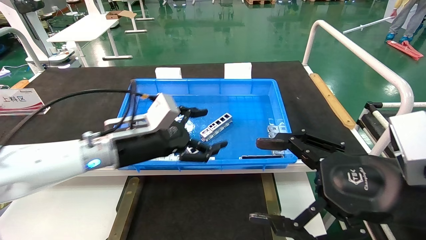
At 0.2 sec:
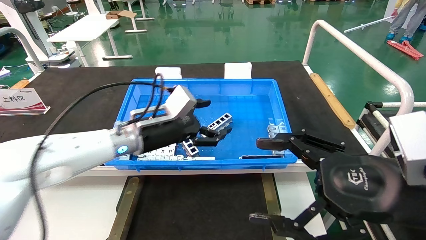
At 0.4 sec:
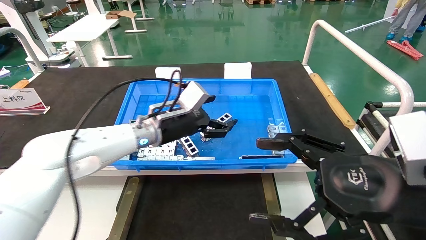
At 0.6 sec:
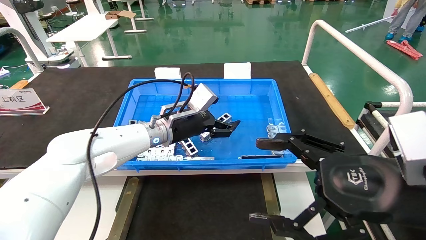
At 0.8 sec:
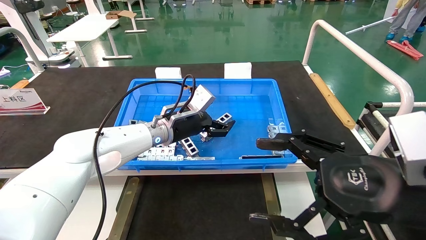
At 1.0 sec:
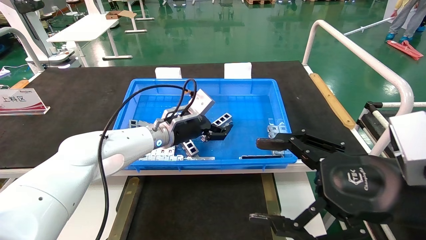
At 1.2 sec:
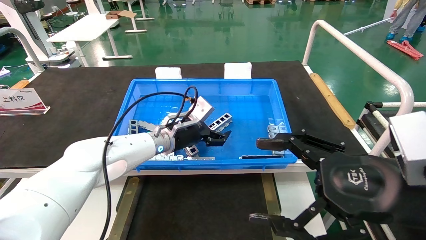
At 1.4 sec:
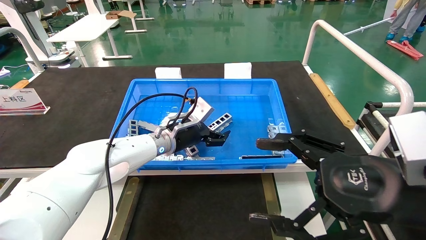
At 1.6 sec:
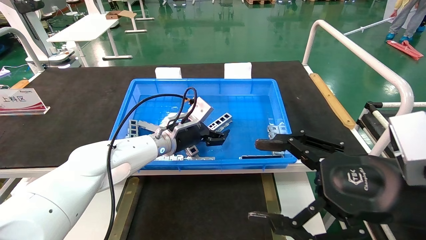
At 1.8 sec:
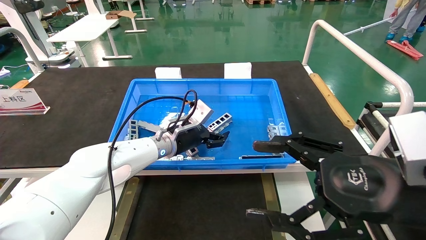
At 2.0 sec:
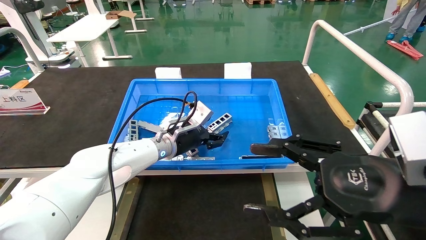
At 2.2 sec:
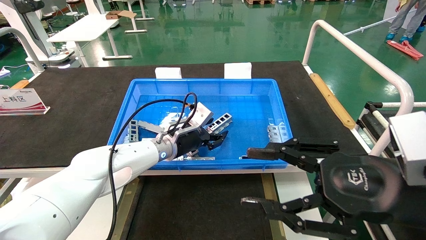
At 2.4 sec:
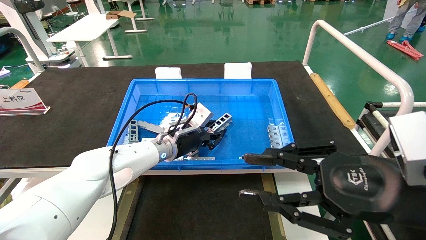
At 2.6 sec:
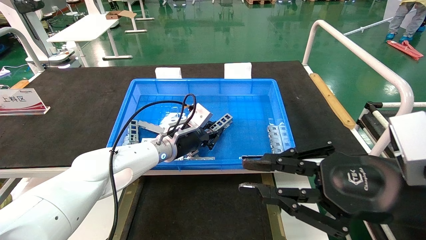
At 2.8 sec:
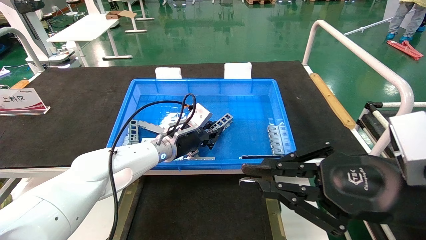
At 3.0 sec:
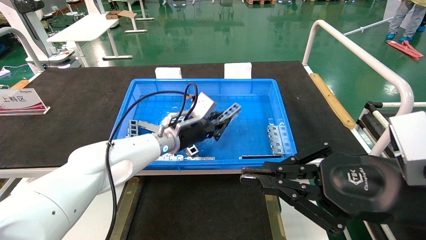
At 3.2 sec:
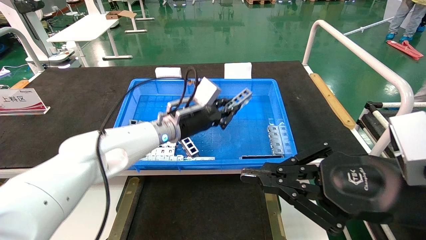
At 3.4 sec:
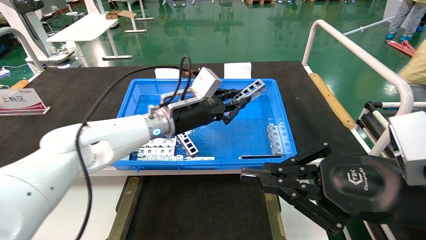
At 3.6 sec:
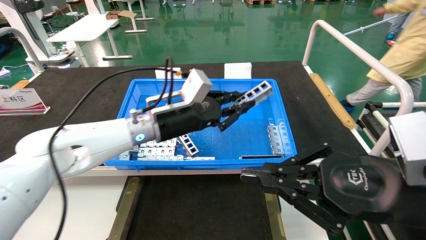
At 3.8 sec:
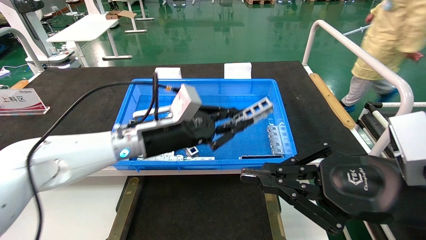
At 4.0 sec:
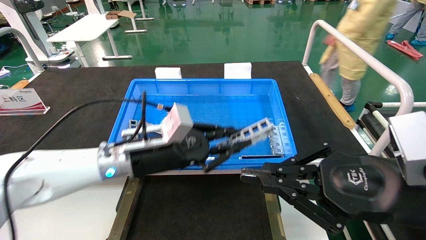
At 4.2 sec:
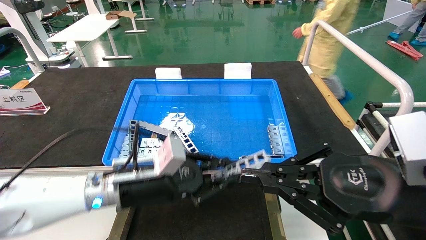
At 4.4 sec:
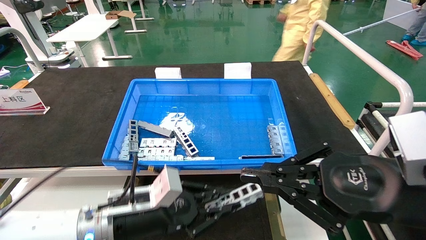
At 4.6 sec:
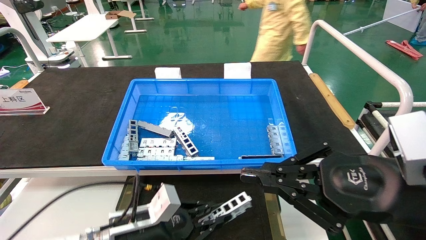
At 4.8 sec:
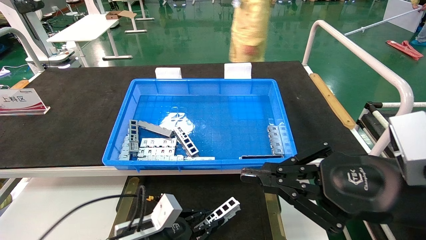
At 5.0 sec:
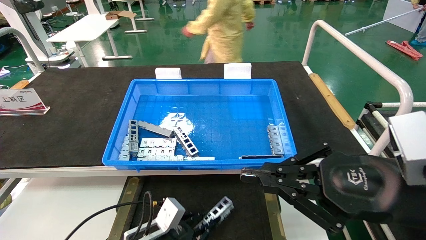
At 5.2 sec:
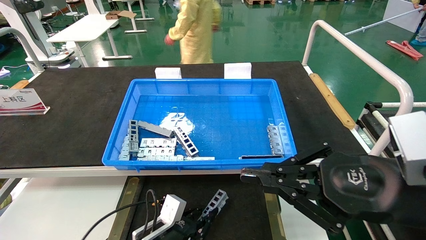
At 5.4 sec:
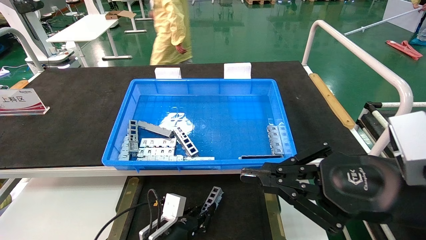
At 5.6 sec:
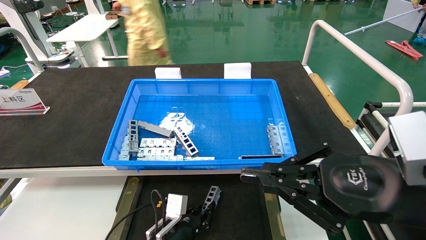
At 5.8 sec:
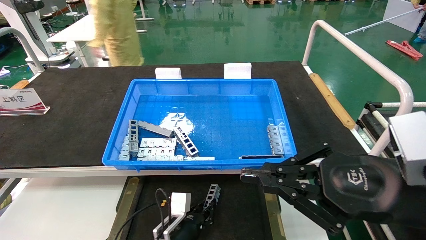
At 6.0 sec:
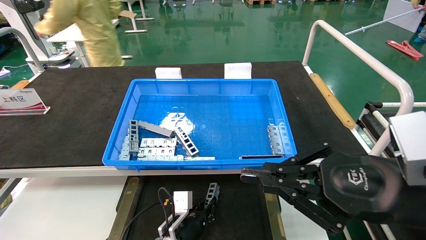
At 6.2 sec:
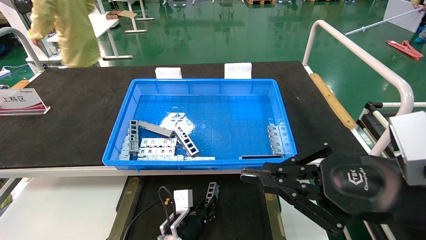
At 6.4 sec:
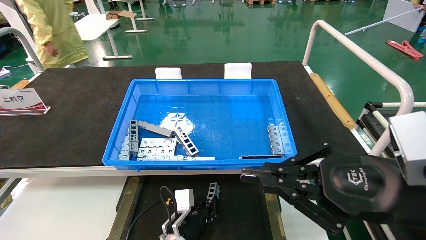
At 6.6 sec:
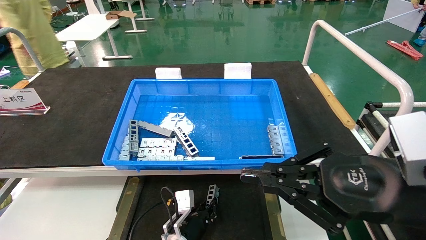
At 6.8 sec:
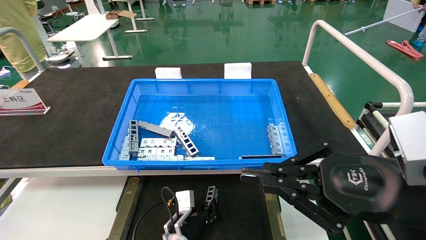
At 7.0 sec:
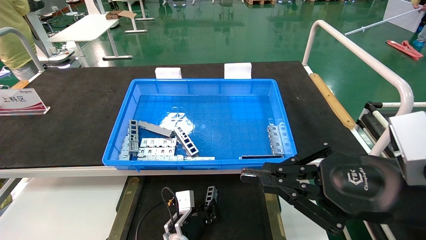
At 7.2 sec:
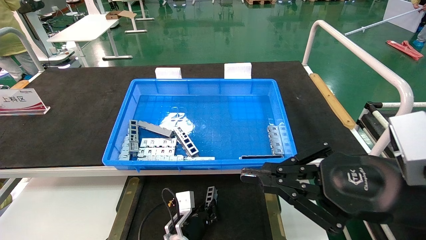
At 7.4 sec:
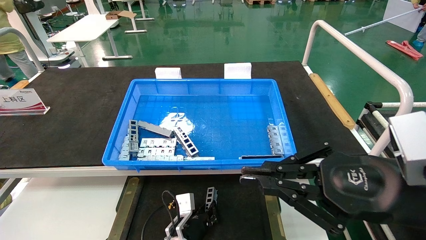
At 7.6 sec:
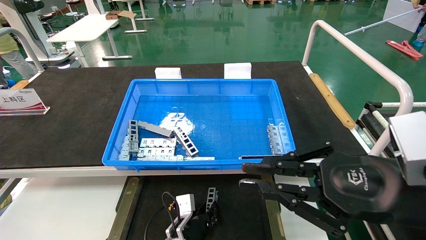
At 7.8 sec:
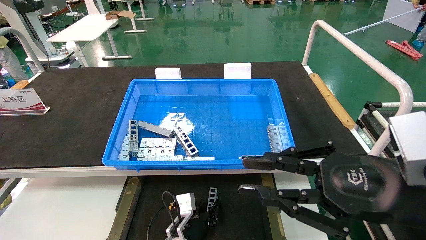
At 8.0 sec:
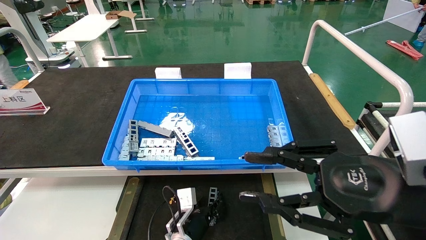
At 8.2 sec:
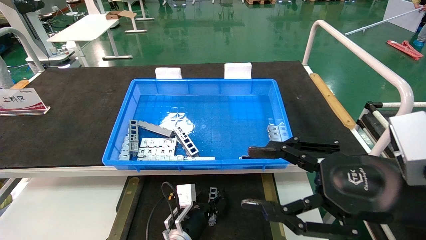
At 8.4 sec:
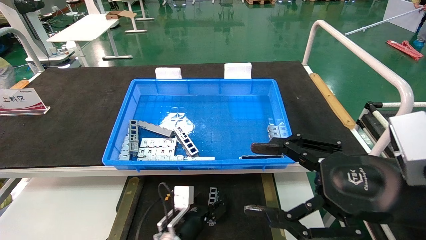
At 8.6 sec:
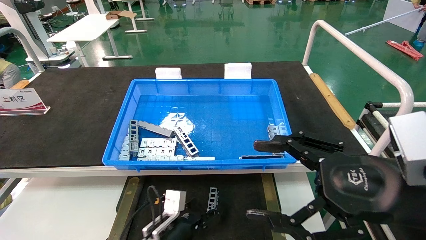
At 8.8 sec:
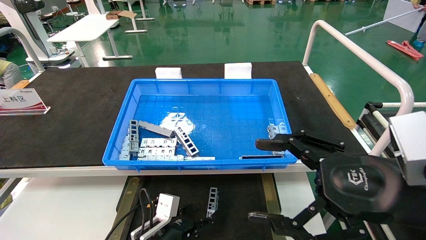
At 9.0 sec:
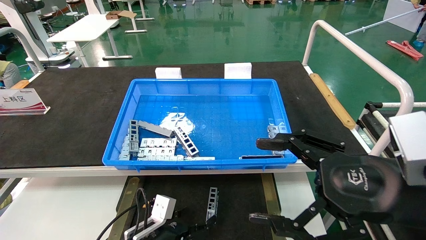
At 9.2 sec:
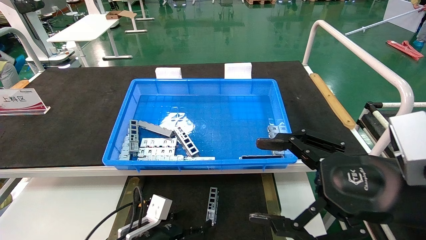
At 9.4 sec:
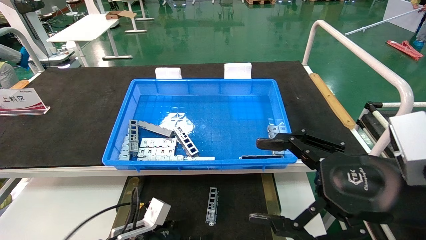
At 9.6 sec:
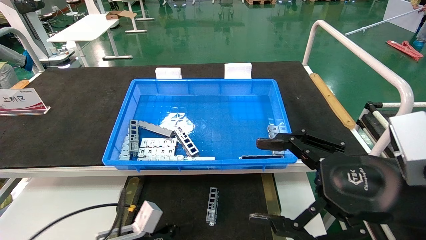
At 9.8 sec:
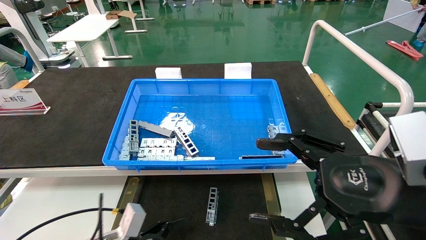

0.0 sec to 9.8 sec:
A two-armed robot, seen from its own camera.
Task of the whole recording: Grasp the part with one hand and place it on the black container.
Step, 0.0 sec to 2.8 sec: Pick up the front USB bracket from the feeding area.
Step, 3.0 sec to 8.0 sec: Place the front USB bracket into the box.
0.0 sec to 1.4 sec: The left gripper travels forward and to the right by about 15 cm.
1.4 sec to 2.8 sec: The right gripper closes. Meanwhile the left gripper closes its fingers.
2.8 sec to 4.2 sec: The left gripper heads backward, covering some 15 cm.
4.2 sec to 5.6 sec: The left gripper heads downward, covering approximately 20 cm.
5.6 sec to 7.0 sec: The left gripper ends up some 5 cm from where it was.
7.0 sec to 8.4 sec: The right gripper opens up; the left gripper opens its fingers.
8.4 sec to 9.8 sec: The left gripper is displaced to the left, backward and upward by some 15 cm; the right gripper opens.
